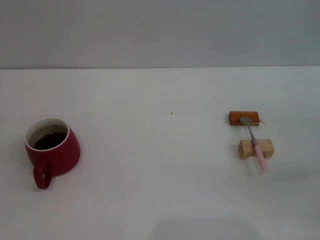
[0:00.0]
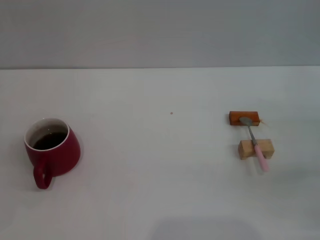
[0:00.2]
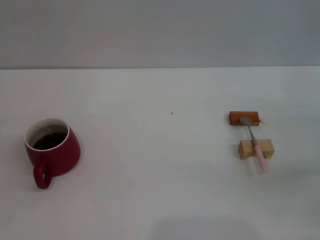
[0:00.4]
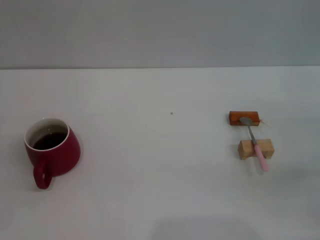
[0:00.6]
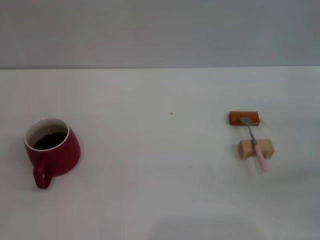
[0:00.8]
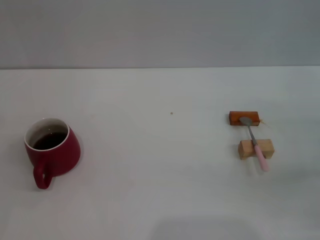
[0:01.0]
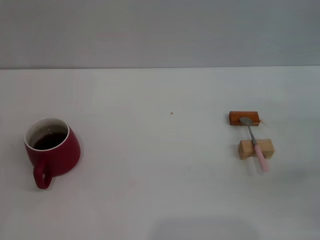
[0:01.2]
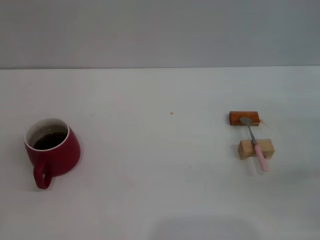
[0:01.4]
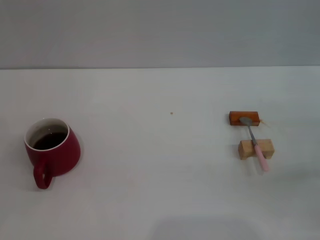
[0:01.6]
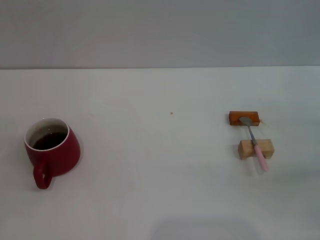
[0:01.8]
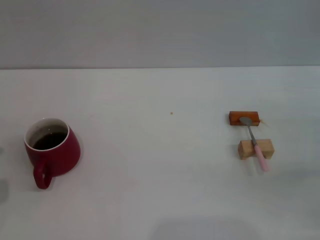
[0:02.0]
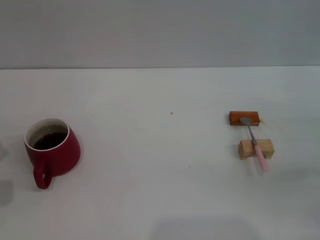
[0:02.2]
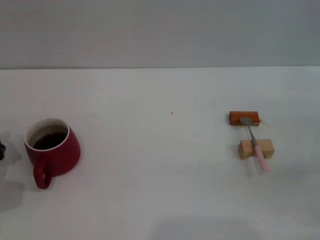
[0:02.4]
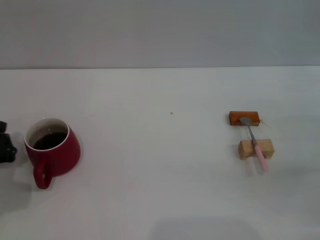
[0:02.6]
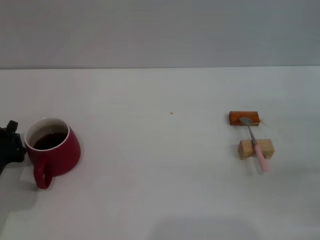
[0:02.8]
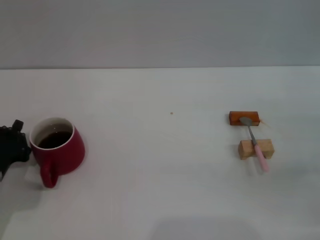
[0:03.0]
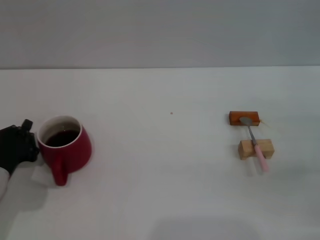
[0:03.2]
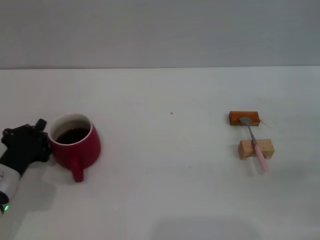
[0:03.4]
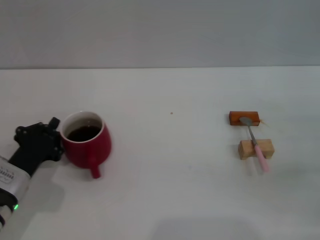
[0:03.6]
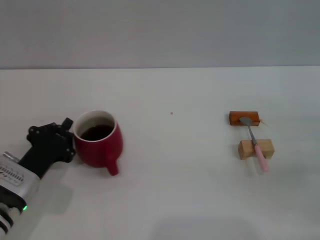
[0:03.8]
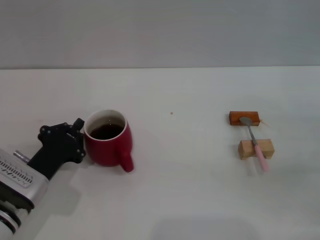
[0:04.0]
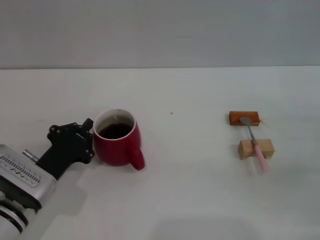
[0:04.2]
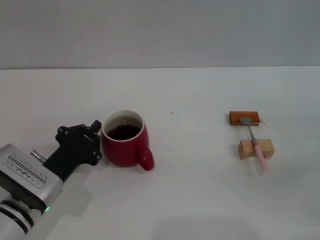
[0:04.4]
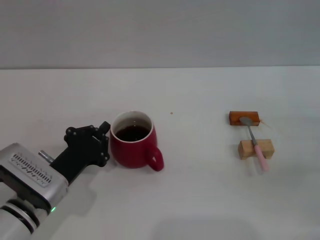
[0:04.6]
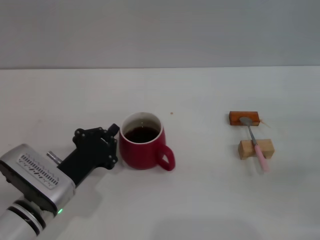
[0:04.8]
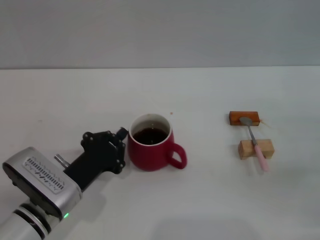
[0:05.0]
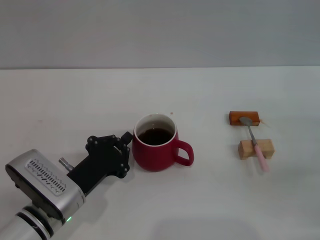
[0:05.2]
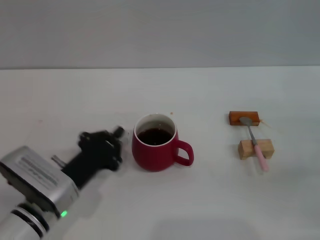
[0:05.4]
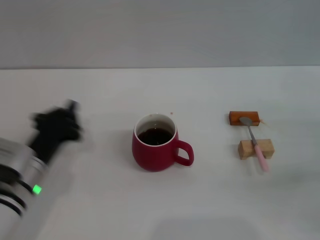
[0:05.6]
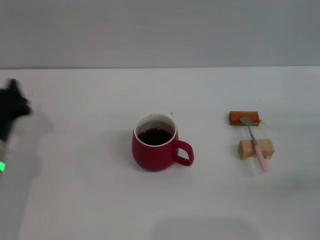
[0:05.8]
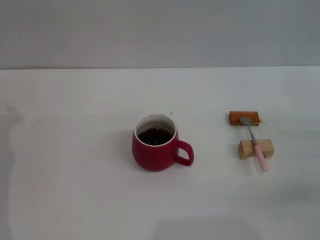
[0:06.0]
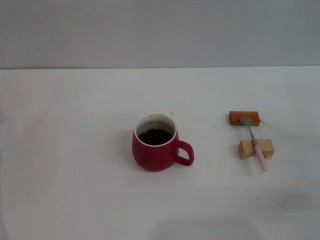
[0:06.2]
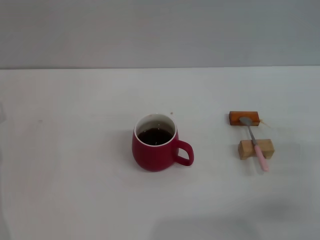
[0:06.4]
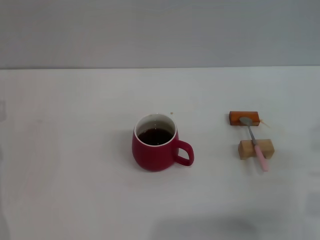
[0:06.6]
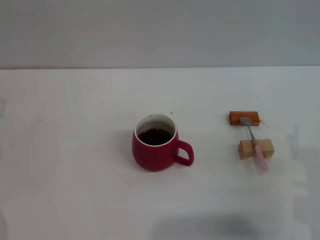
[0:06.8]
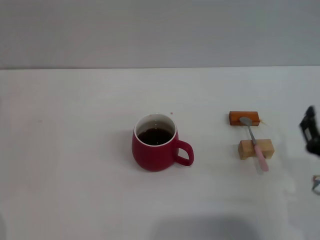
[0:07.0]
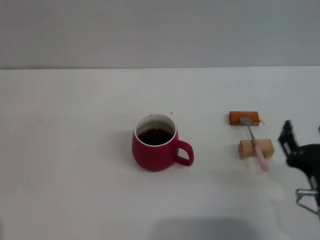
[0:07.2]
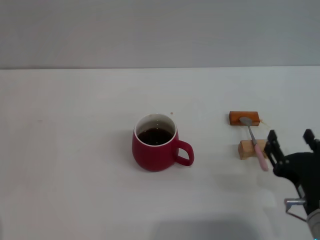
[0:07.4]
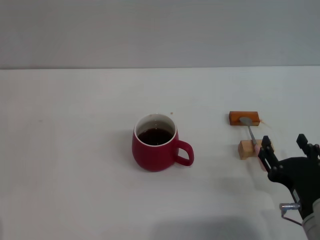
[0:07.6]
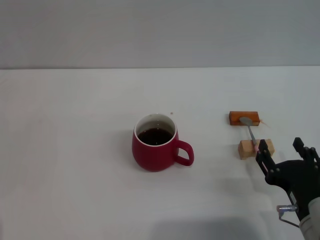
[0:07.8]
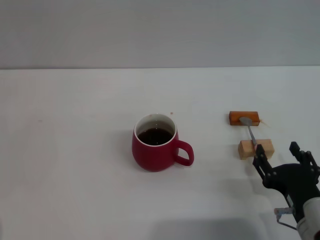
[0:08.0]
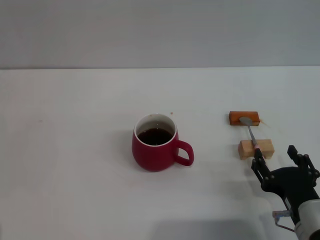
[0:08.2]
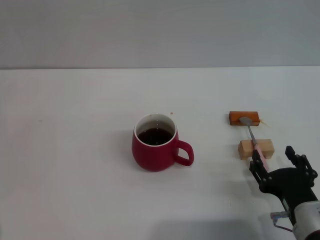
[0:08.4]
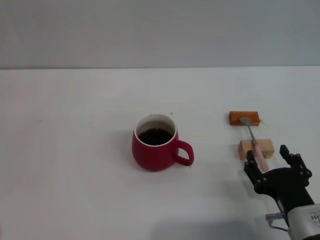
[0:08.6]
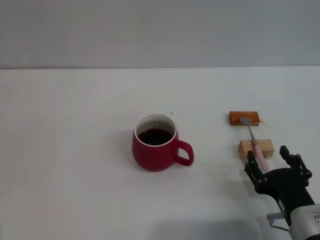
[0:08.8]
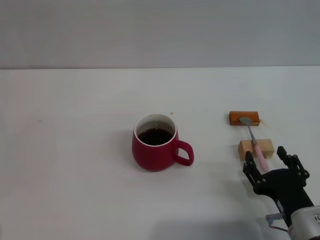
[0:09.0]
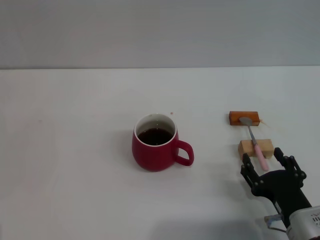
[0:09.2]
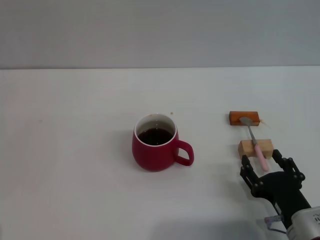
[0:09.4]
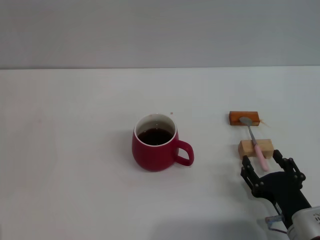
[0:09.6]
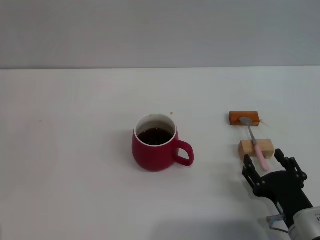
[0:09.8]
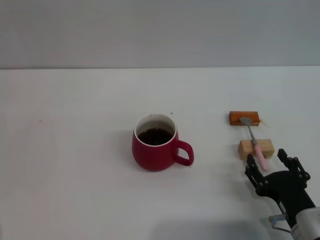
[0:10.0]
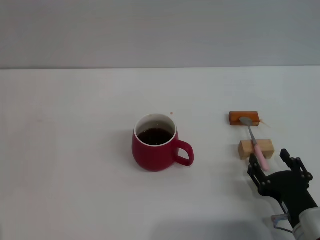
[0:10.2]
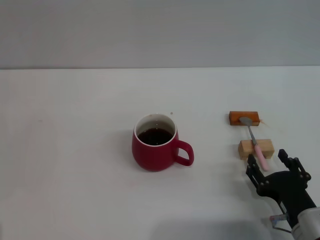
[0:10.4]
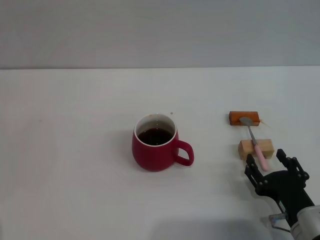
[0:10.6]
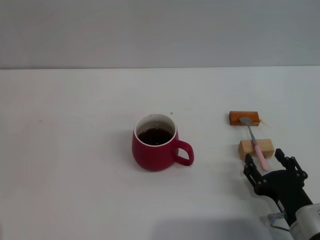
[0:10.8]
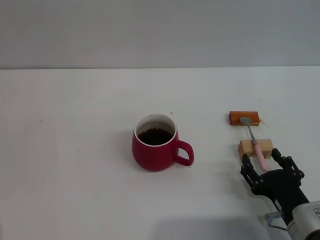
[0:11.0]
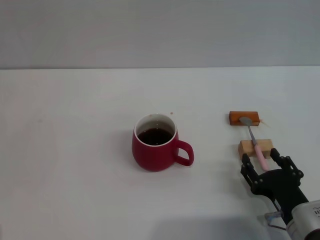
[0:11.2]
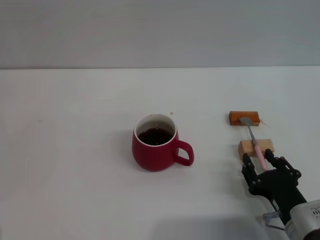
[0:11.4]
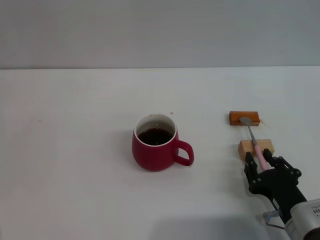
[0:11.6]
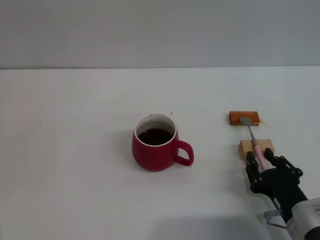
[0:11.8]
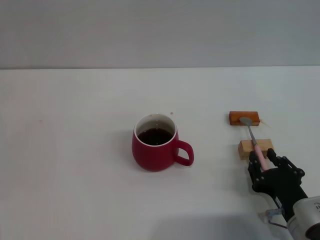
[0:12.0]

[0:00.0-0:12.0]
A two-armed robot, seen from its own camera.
Task of the whole recording: Move the red cup to the center, lift the pink spoon, stir it three times in the cup, and put the spoon into the cup.
Step, 0:00.0 to 0:05.4: Move the cup with coffee to the center of view with the left gripper.
0:01.6 to 0:03.0: The left gripper goes approximately 5 cm to the right.
0:03.0 to 0:04.4: The left gripper goes about 10 cm to the right.
0:04.4 to 0:06.0: The left gripper moves to the left, about 10 cm.
0:06.0 to 0:07.6: The right gripper shifts approximately 20 cm to the left and backward.
0:07.6 to 0:10.4: The grippers make only small movements.
0:10.4 to 0:12.0: The right gripper closes up.

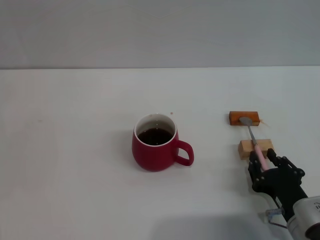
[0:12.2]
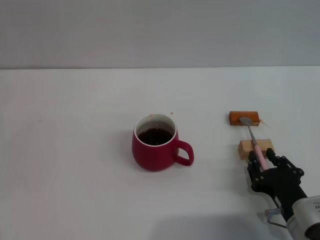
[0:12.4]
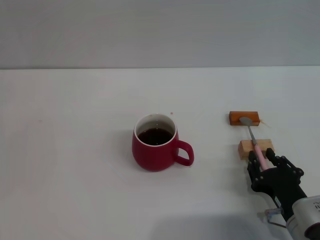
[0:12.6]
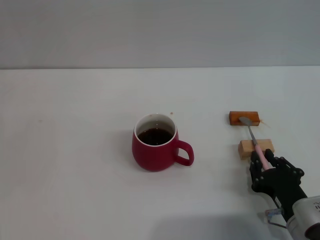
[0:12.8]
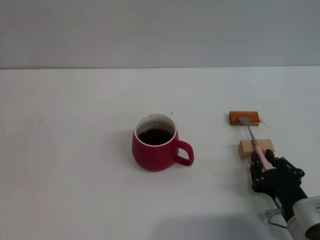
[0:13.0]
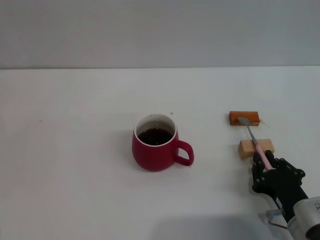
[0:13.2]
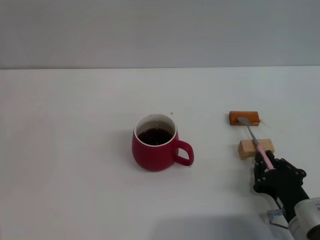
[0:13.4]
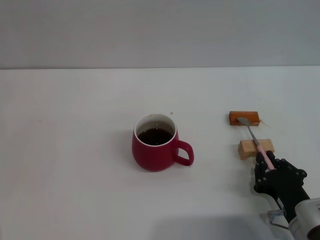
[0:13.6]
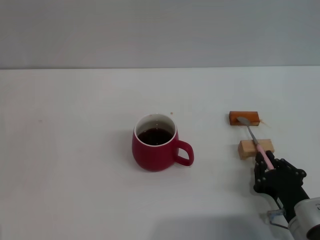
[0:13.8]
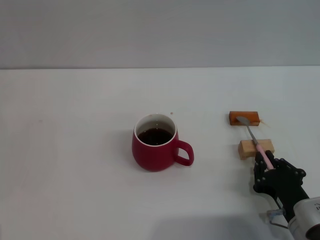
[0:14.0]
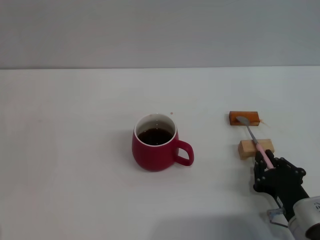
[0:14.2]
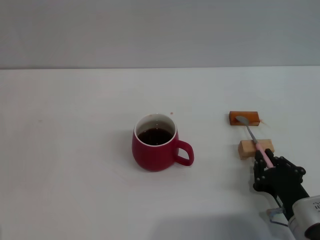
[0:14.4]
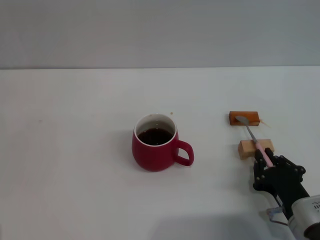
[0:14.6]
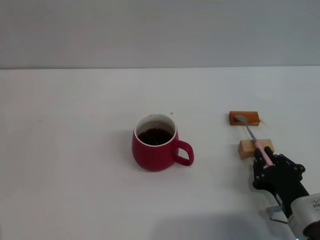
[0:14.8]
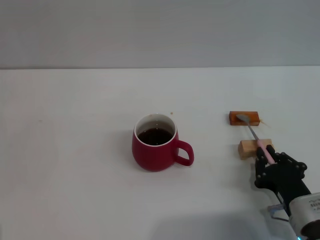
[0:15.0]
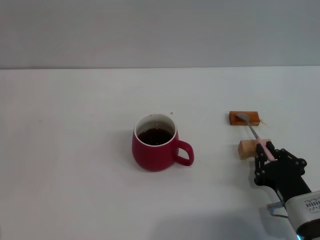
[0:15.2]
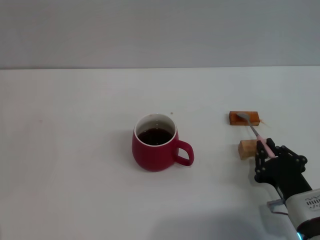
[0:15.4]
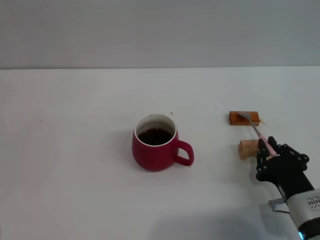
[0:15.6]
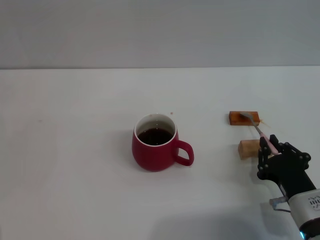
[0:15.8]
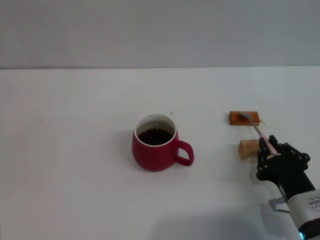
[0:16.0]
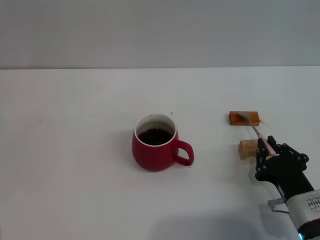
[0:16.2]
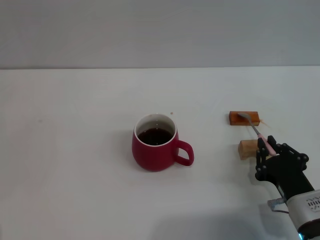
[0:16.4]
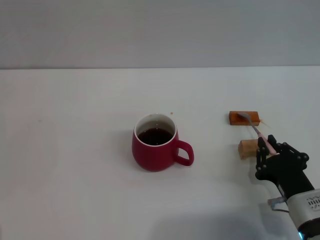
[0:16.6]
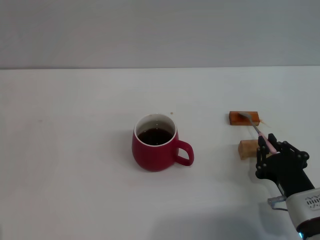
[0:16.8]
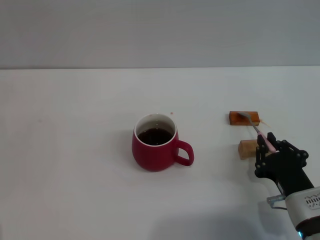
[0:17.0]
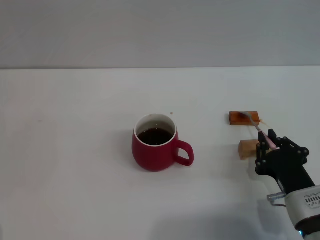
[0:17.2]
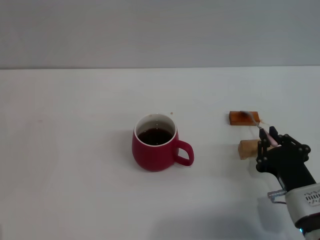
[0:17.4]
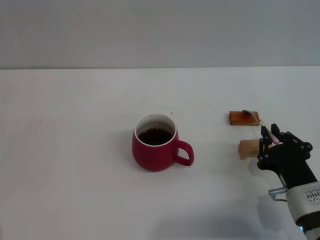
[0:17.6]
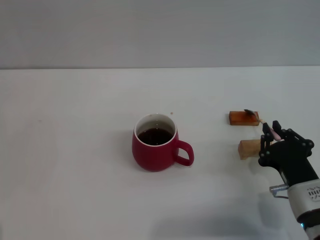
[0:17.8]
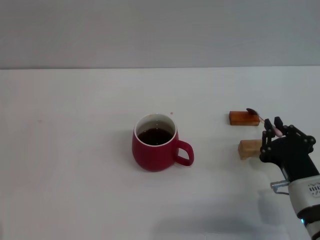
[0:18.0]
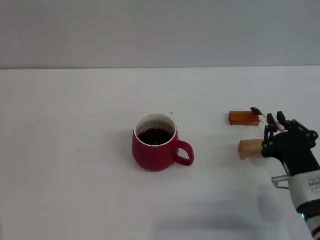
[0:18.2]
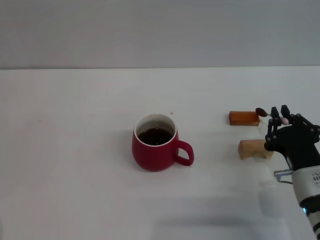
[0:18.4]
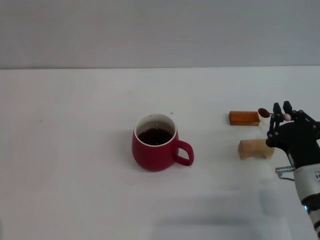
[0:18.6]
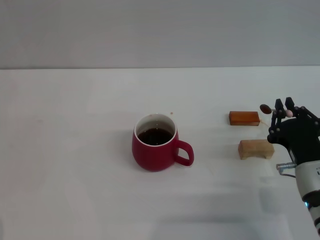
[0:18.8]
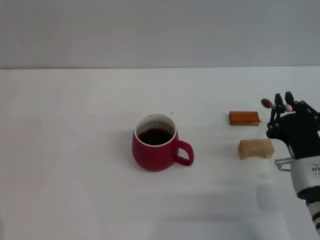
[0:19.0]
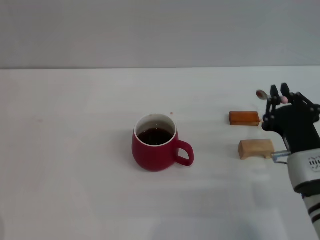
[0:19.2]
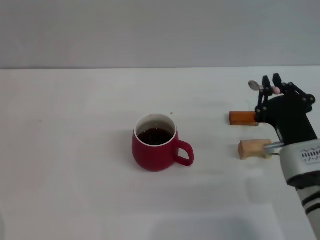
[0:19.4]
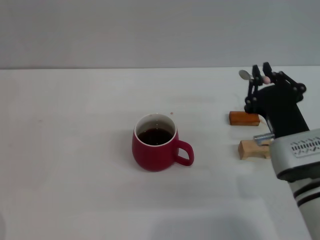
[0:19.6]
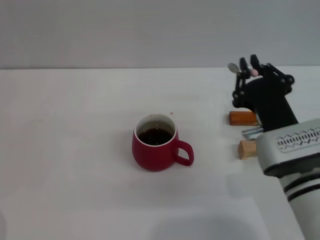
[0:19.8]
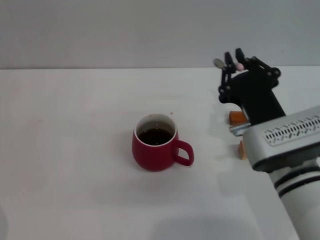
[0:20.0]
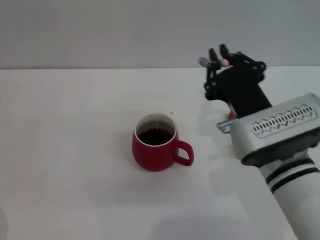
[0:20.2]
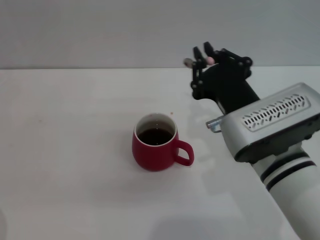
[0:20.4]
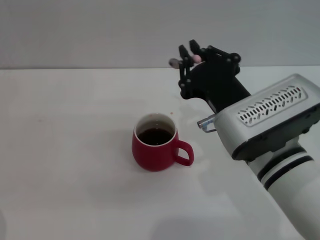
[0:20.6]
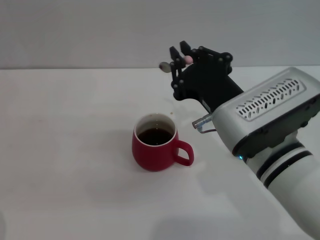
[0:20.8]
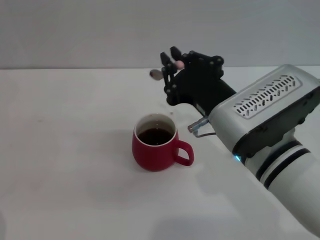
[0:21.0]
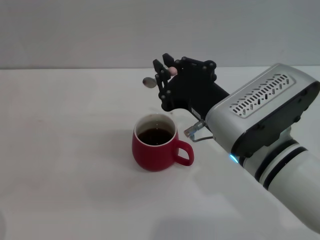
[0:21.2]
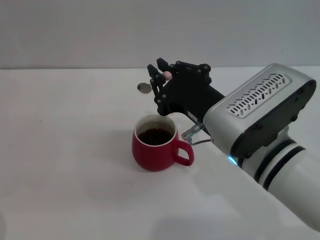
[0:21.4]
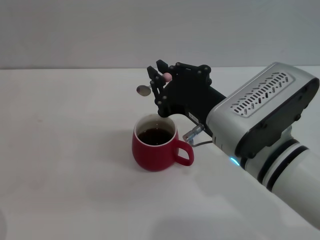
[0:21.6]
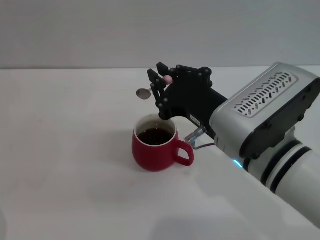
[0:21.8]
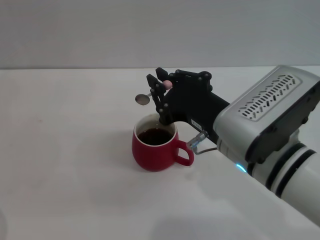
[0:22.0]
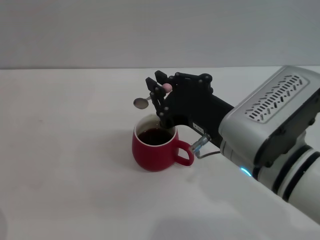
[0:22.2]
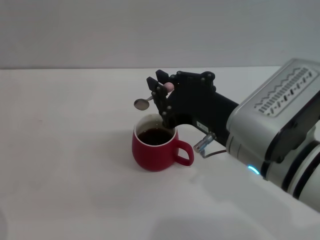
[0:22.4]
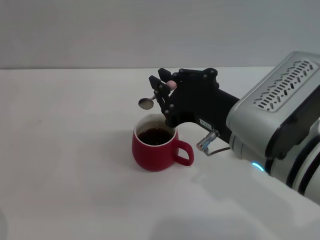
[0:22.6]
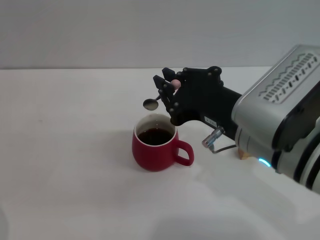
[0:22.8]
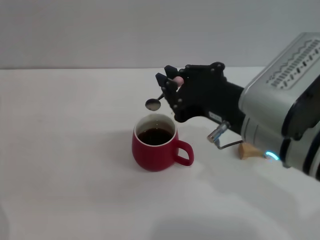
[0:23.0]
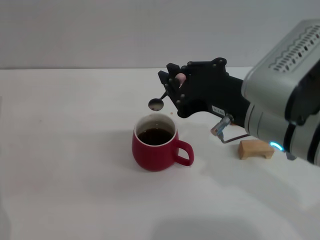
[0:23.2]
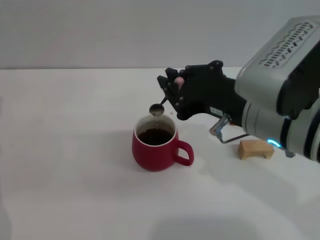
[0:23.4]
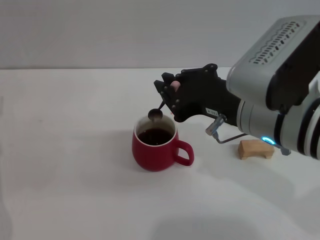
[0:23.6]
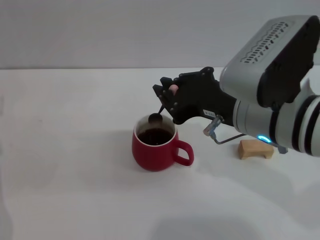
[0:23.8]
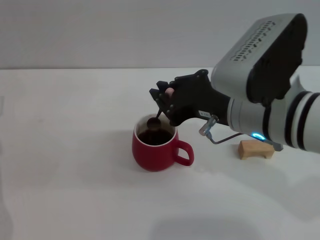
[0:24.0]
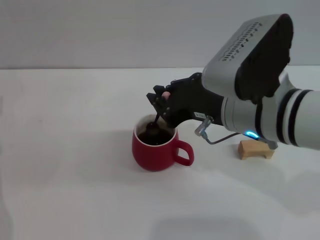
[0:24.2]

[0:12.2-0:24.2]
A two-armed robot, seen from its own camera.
Task of the whole recording: Move the red cup to the center, lift the pink spoon, stir it three times in the cup, and put the spoon into the cup.
Step, 0:12.2 to 0:19.4: Pick up the spoon with the right gripper.
0:12.2 to 0:13.8: The right gripper closes up.
0:13.8 to 0:15.2: There are only small adjustments of the grippers.
0:15.2 to 0:16.6: Both grippers stay put.
0:16.6 to 0:18.2: The grippers stay close to where they were, moving slightly.
0:18.2 to 0:19.8: The right gripper heads upward, covering approximately 5 cm.
0:19.8 to 0:21.2: The right gripper shifts roughly 10 cm upward and to the left.
0:21.2 to 0:22.6: The grippers make only small movements.
0:22.6 to 0:24.2: The right gripper is displaced forward by some 5 cm.
